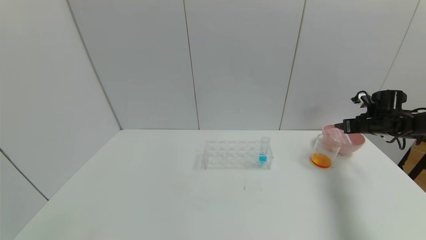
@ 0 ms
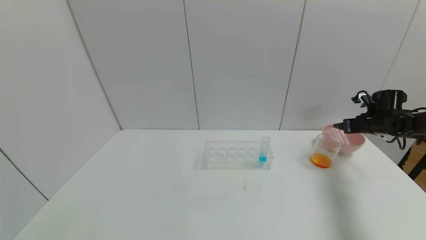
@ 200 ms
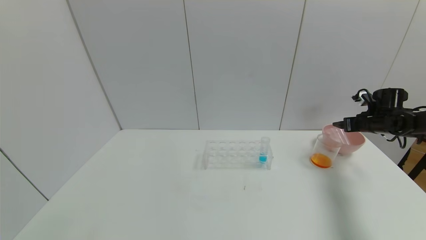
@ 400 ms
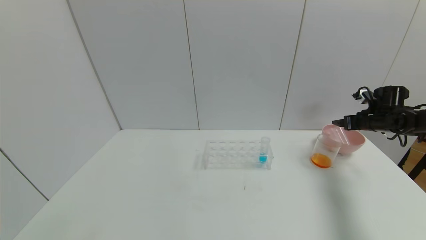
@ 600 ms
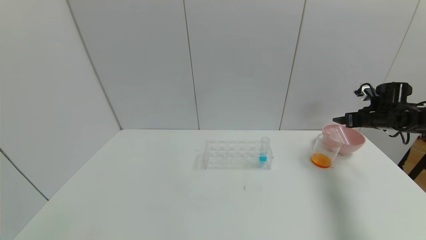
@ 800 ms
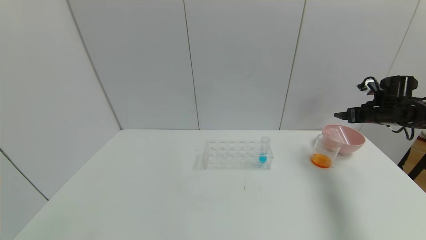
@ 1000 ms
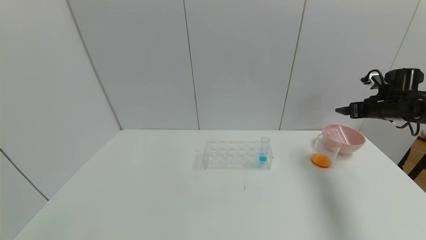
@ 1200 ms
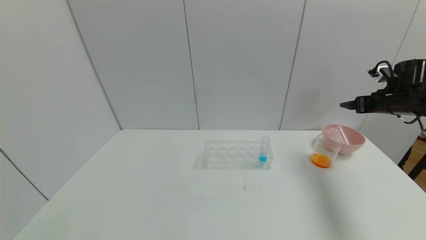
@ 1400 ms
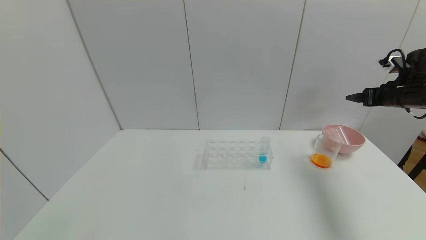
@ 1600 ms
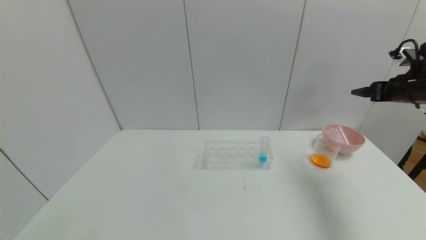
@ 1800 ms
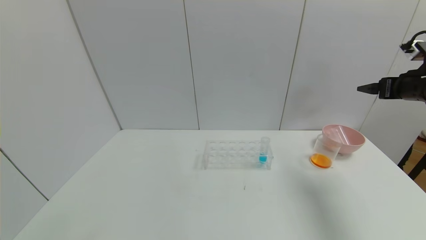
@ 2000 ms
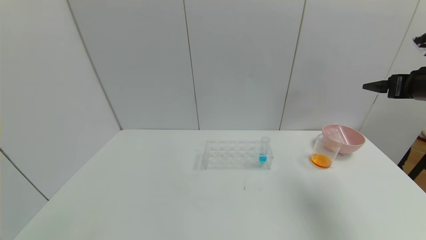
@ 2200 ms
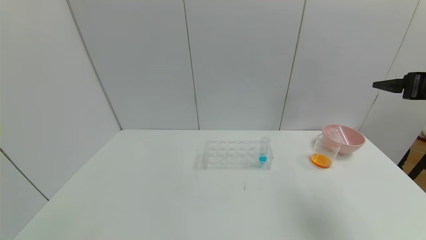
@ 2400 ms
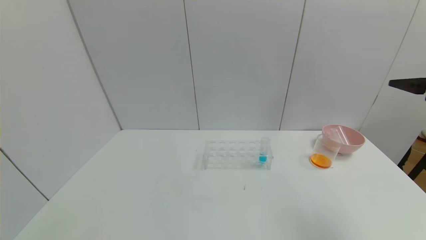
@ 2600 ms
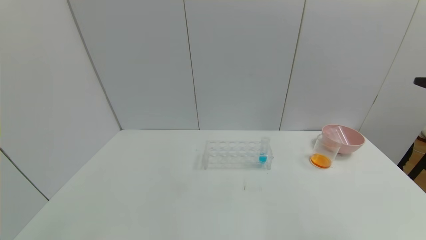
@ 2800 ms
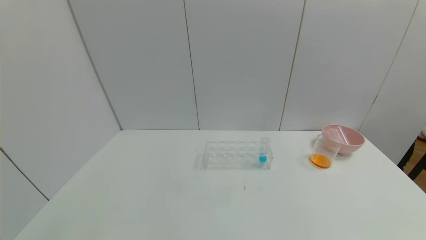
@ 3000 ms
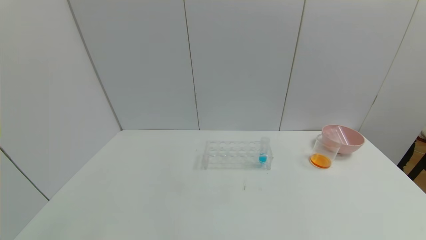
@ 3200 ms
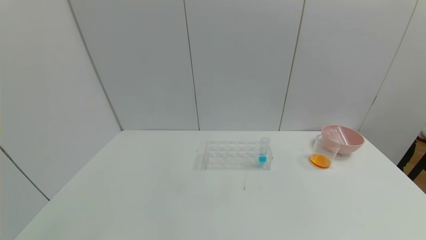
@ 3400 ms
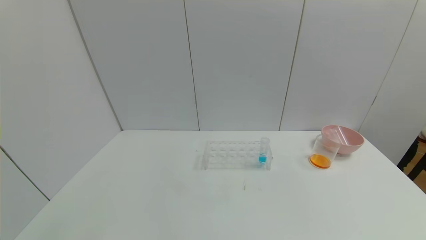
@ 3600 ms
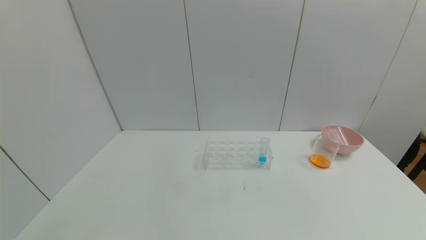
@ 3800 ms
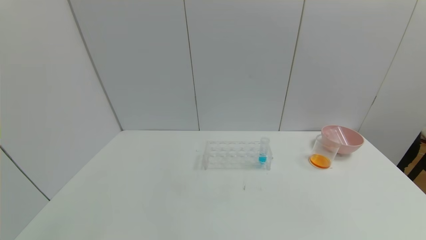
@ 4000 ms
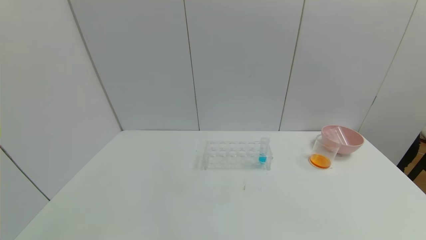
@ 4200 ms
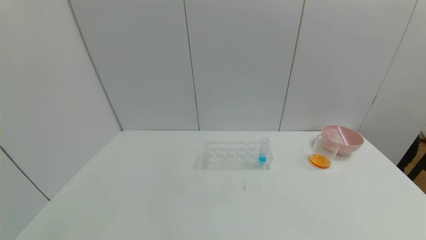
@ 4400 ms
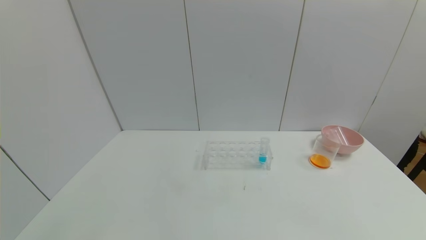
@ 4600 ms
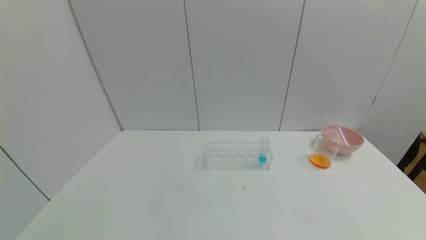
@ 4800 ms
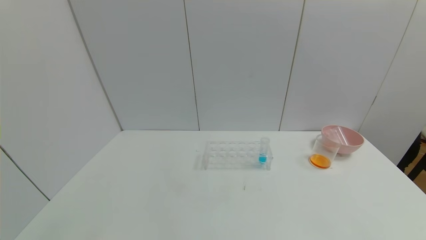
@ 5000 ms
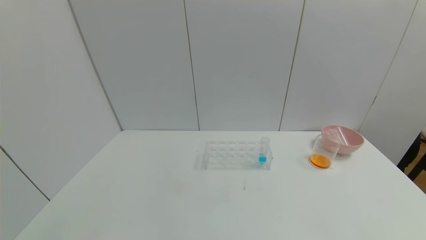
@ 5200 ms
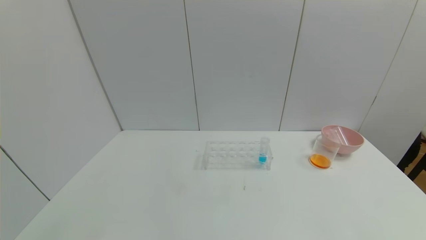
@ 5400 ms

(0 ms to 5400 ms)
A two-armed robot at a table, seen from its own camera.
Task of the whole recording: pick up the test tube with yellow pigment and the test tube with red pigment by grippers and pour them into the beaker.
0 ms - 1400 ms: The right gripper goes roughly 10 cm upward, and opens.
1400 ms - 2800 ms: The right gripper goes roughly 25 cm backward and upward.
